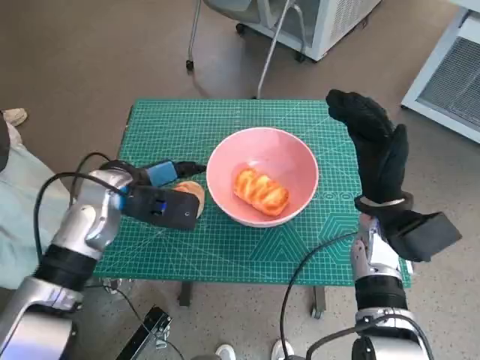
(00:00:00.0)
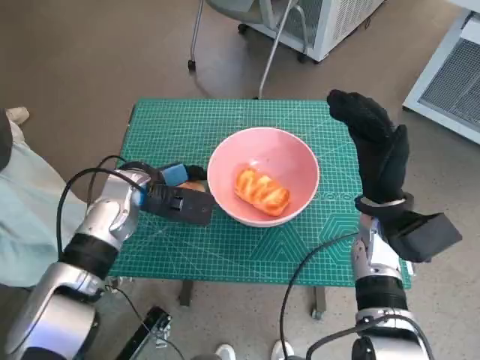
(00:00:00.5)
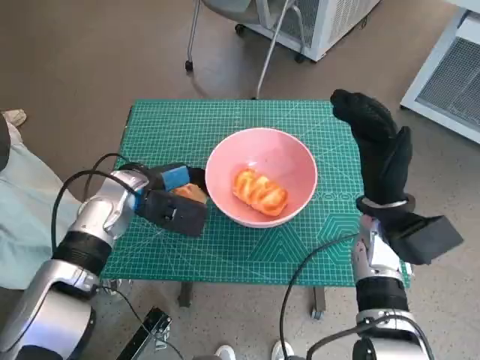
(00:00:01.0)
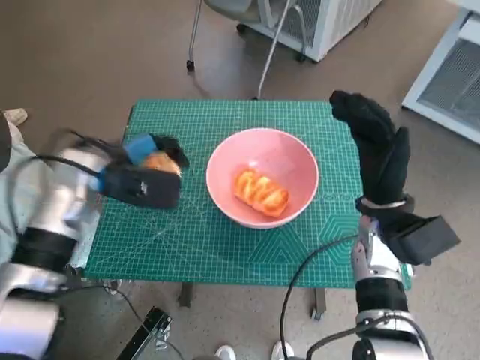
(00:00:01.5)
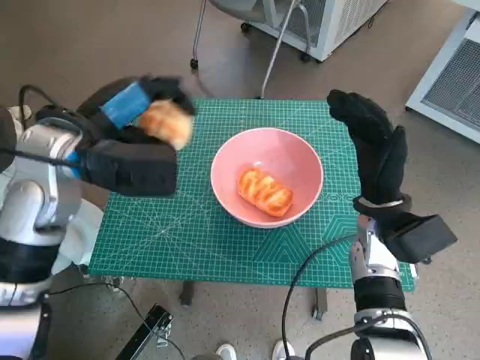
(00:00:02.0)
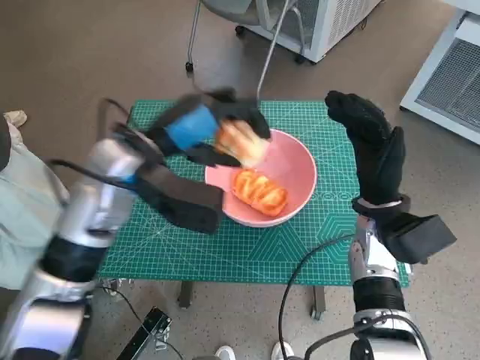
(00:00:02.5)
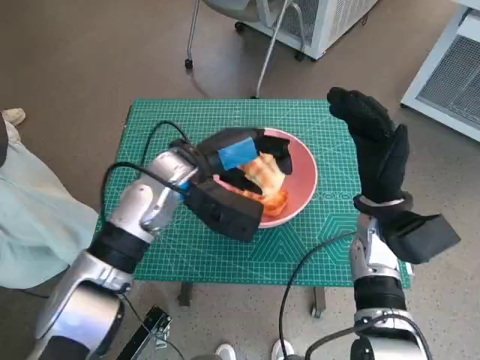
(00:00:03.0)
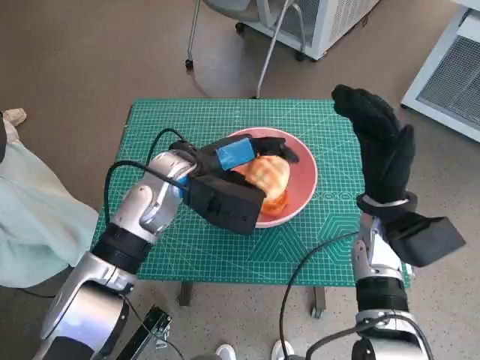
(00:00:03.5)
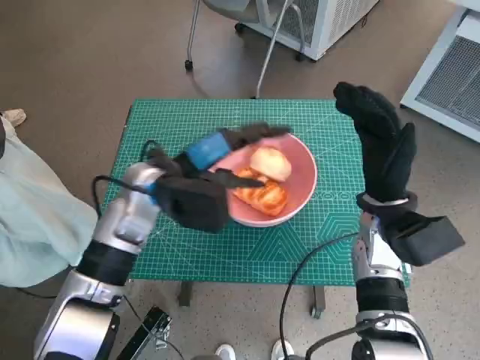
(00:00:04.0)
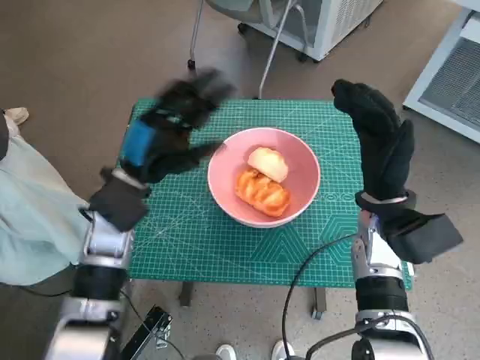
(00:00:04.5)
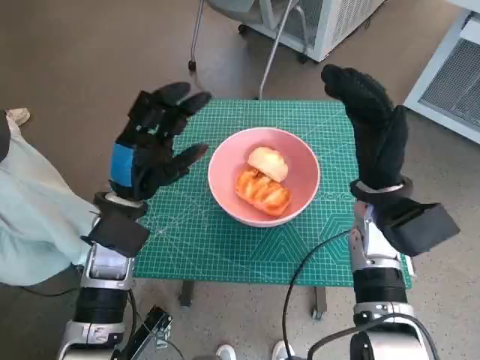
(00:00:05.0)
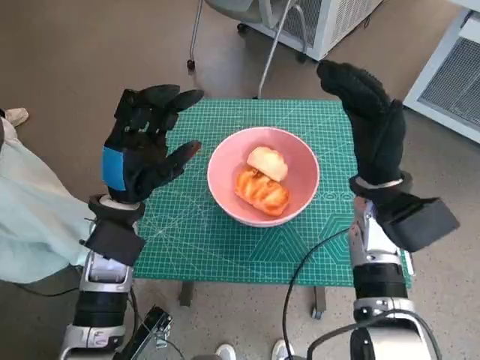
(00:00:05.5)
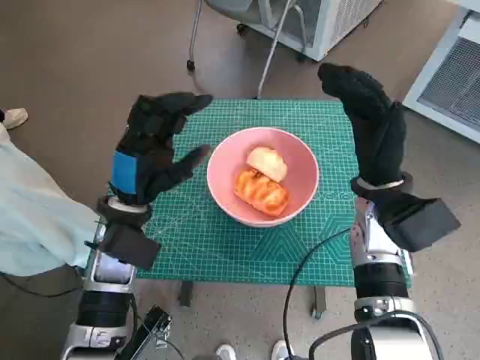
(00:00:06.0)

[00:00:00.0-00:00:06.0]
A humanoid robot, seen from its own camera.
Task of the whole recording: Push the bowl to the center of the table and put the bread into the bowl.
Step, 00:00:00.5 to 00:00:04.0: Place the round bread in pink bowl with left hand.
00:00:00.0 to 00:00:02.0: The left hand goes approximately 10 cm upward.
00:00:02.0 to 00:00:04.0: The left hand moves downward and to the right, about 10 cm.
00:00:04.0 to 00:00:06.0: The left hand moves some 5 cm.

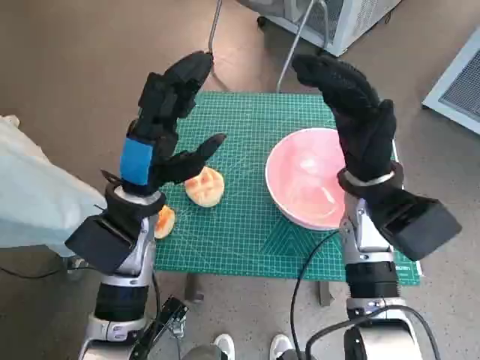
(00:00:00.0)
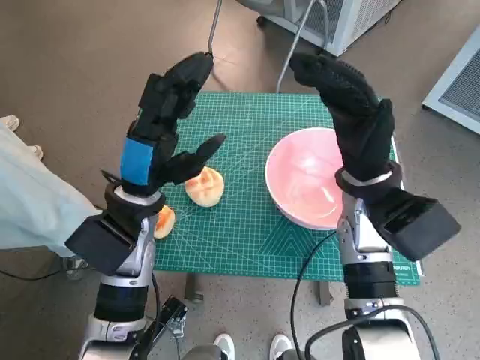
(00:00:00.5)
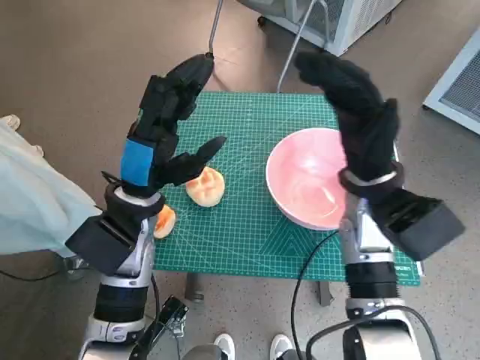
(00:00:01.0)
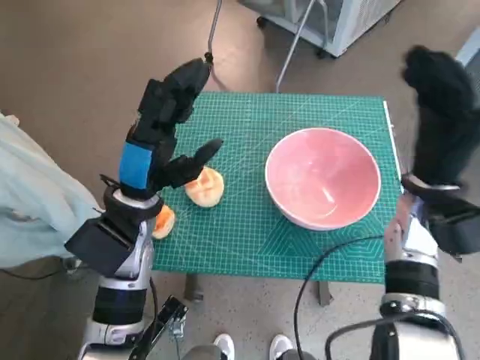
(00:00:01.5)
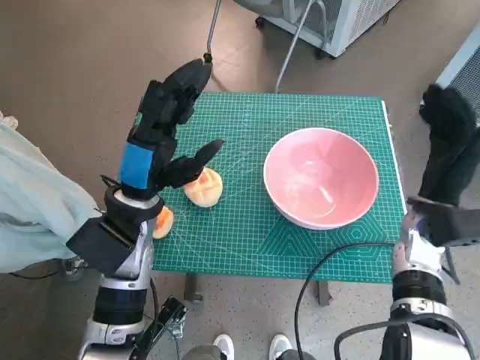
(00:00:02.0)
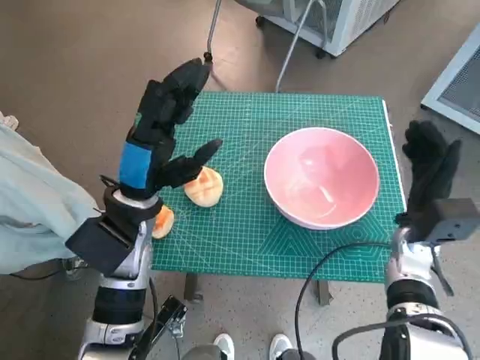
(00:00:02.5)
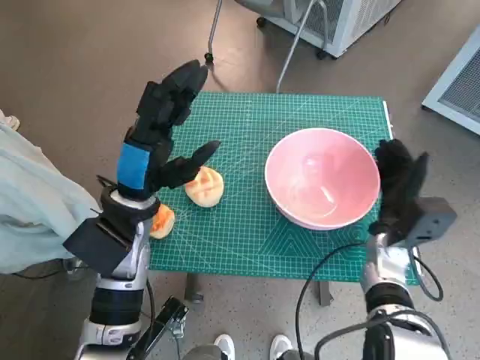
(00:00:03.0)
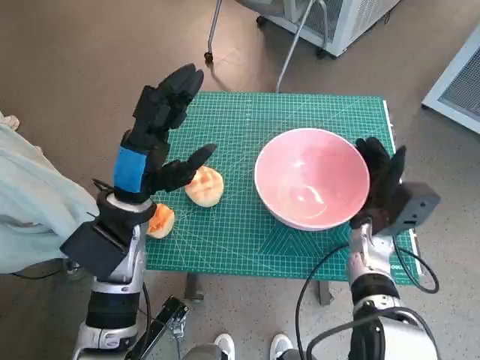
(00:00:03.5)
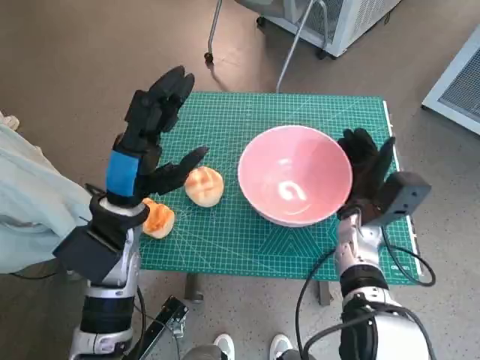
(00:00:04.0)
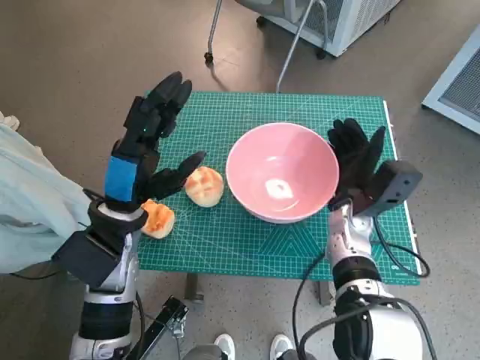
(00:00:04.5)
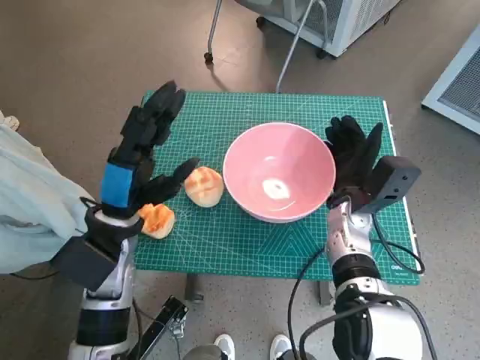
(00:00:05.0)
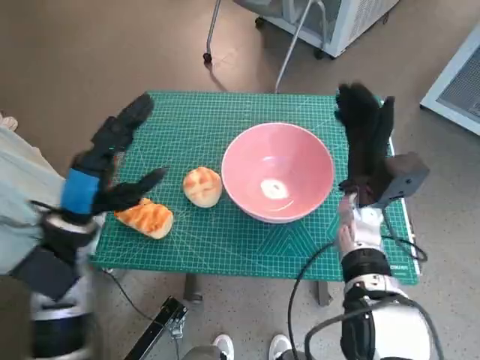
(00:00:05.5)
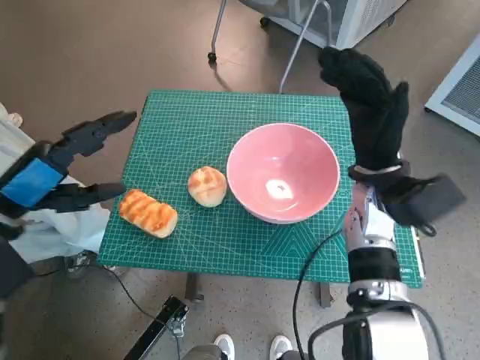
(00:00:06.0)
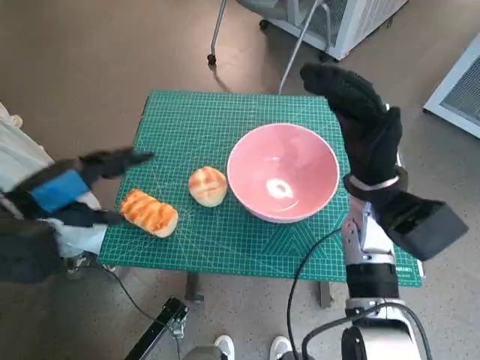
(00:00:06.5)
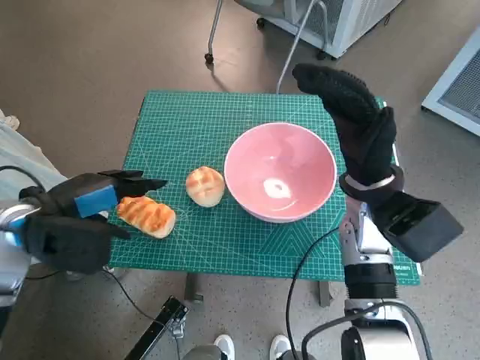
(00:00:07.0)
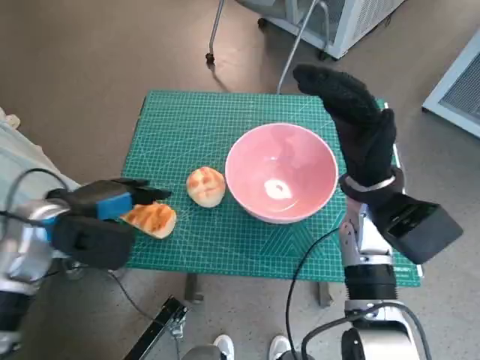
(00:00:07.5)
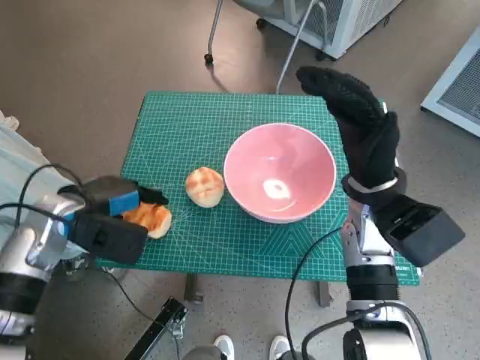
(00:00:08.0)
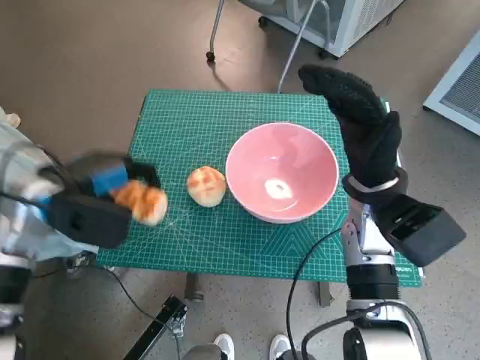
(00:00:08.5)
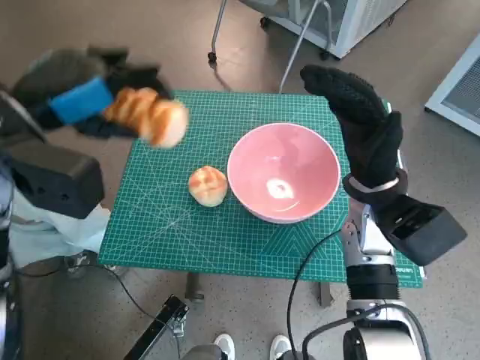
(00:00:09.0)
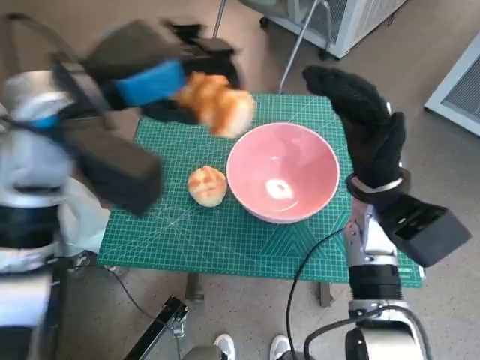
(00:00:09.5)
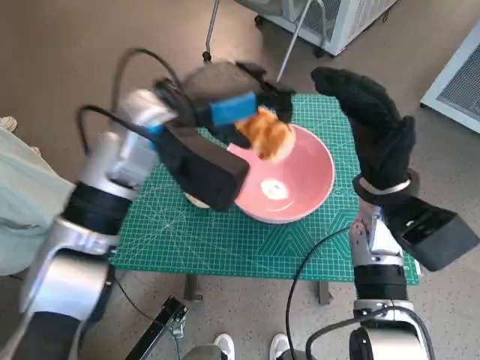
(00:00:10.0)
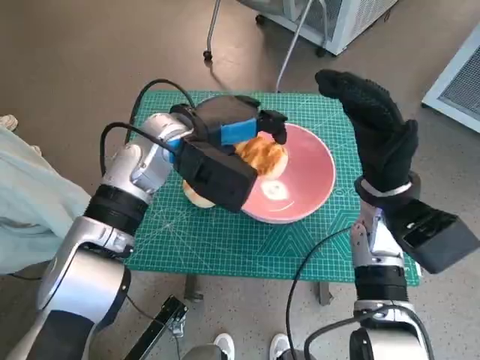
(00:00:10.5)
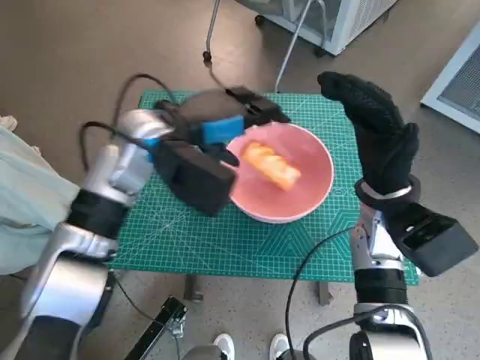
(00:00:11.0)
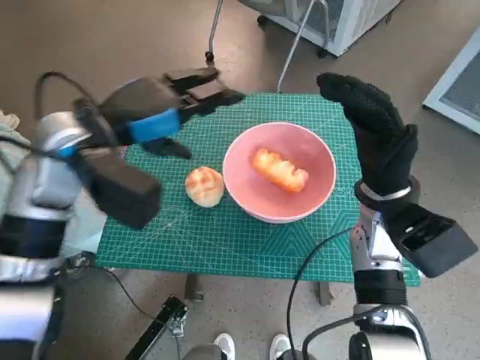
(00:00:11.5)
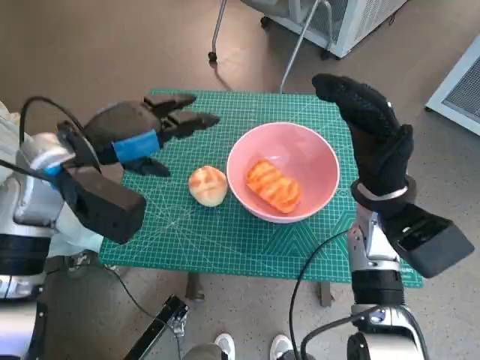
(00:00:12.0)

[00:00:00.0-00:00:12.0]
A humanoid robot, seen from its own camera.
Task of the whole recording: Push the bowl to the center of the table and put the bread into the bowl.
Step, 00:00:00.0 to 00:00:05.0: Move the pink bowl to the center of table with right hand.
Step, 00:00:05.5 to 00:00:08.0: Grasp the long bread with left hand.
Step, 00:00:08.5 to 00:00:11.0: Place the long bread in pink bowl with left hand.
00:00:02.0 to 00:00:04.0: The right hand is displaced to the left and downward by roughly 10 cm.
00:00:04.0 to 00:00:06.0: The right hand heads upward, covering some 10 cm. Meanwhile the left hand heads to the left and upward, covering some 15 cm.
00:00:06.0 to 00:00:08.0: The left hand travels downward and forward by approximately 10 cm.
00:00:08.0 to 00:00:10.0: The left hand travels to the right and upward by about 20 cm.
00:00:10.0 to 00:00:12.0: The left hand is displaced to the left by roughly 10 cm.

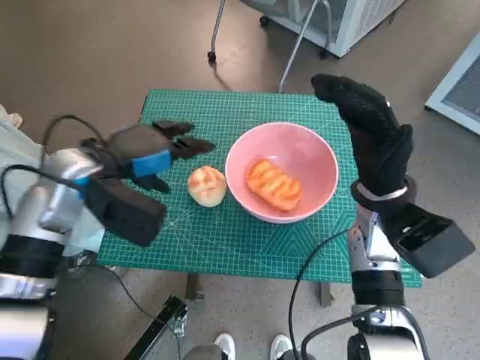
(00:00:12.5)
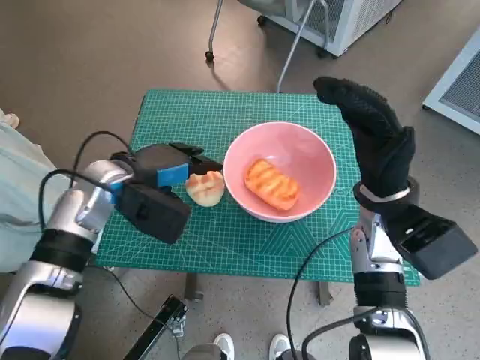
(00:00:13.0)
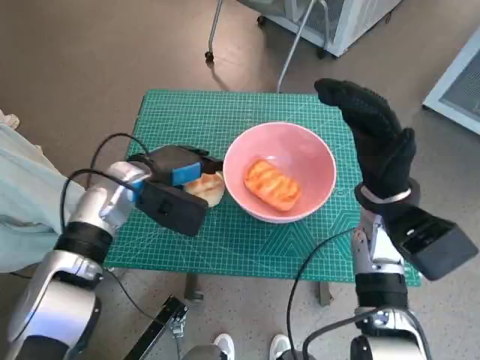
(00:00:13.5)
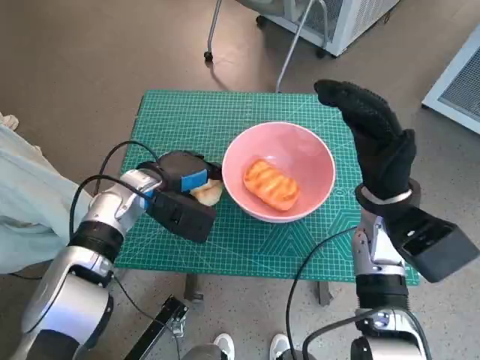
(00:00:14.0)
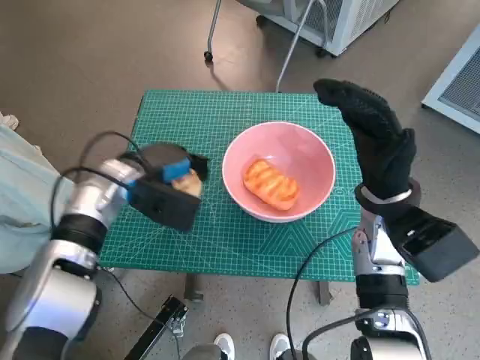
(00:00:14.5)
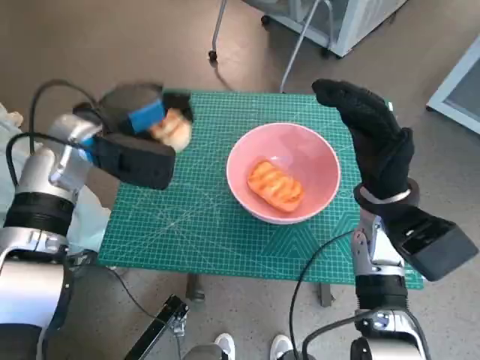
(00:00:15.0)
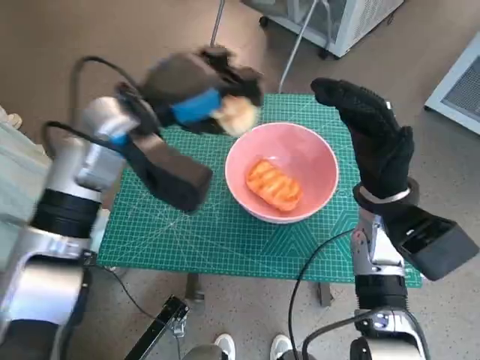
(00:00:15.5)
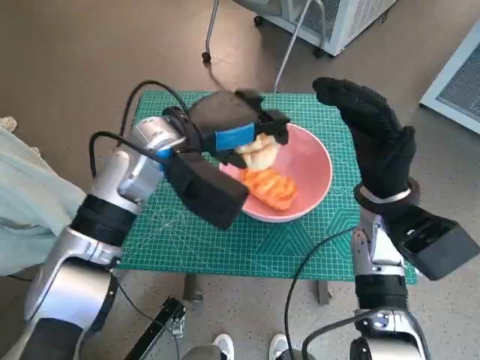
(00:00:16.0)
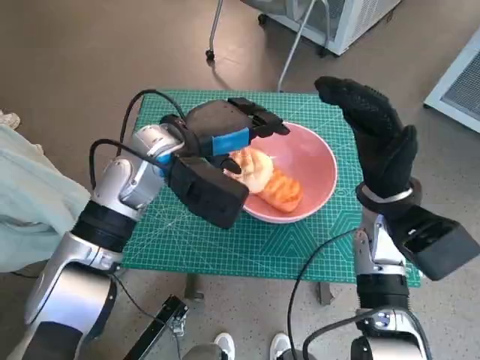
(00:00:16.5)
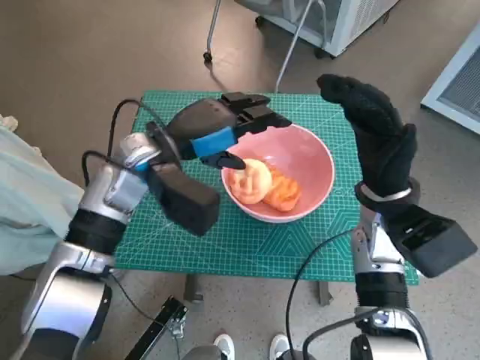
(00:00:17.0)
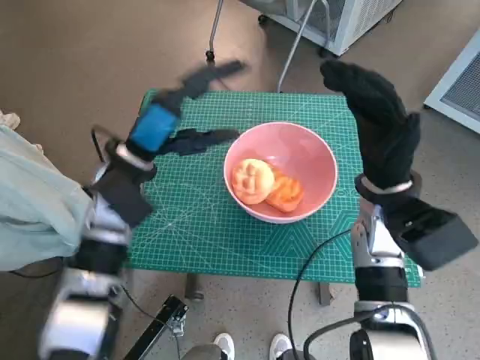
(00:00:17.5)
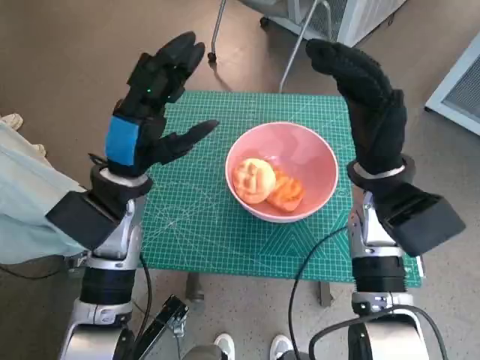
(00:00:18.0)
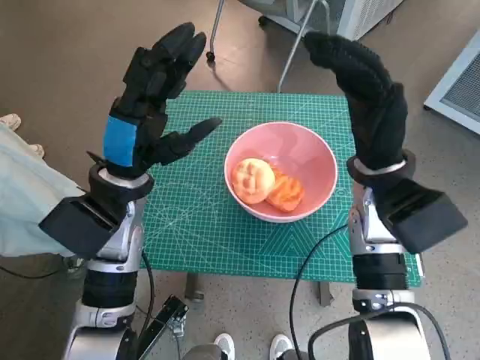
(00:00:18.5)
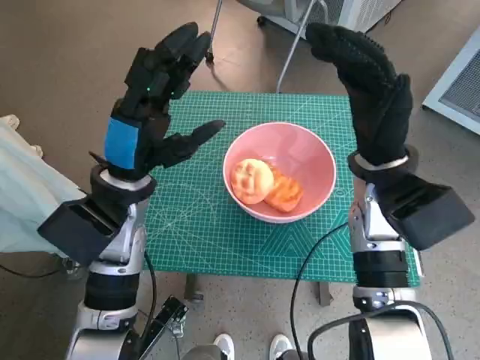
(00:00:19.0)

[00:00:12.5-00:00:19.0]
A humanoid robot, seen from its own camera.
Task of the whole recording: Push the bowl to the center of the table and put the bread into the bowl.
Step, 00:00:12.5 to 00:00:14.0: Grasp the round bread with left hand.
Step, 00:00:14.5 to 00:00:16.5: Place the round bread in pink bowl with left hand.
00:00:12.5 to 00:00:14.5: The left hand heads downward, covering some 5 cm.
00:00:14.5 to 00:00:17.0: The left hand goes roughly 10 cm upward and to the right.
00:00:17.0 to 00:00:19.0: The left hand heads backward, covering approximately 5 cm.
